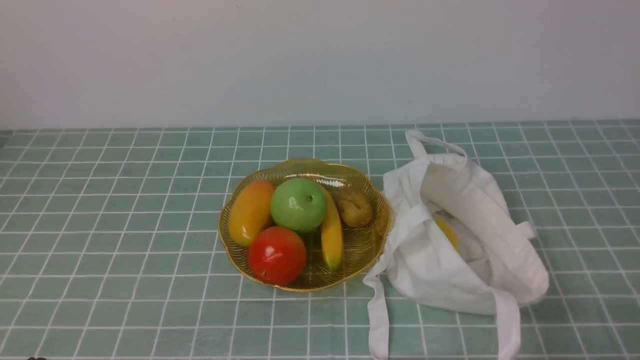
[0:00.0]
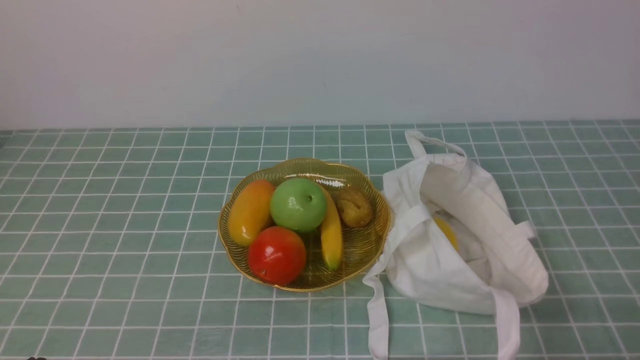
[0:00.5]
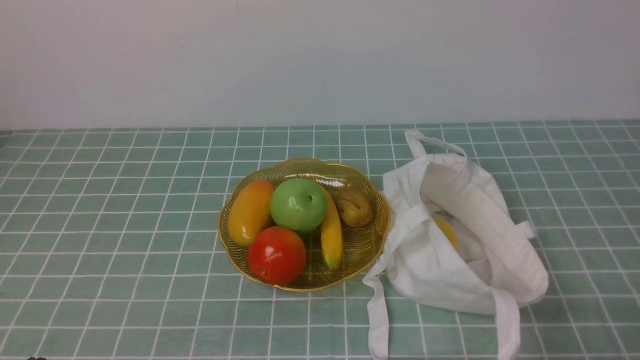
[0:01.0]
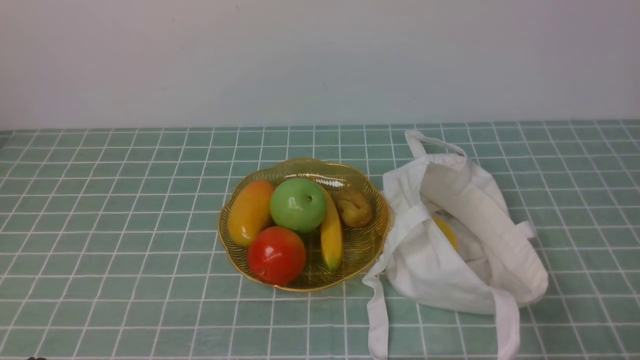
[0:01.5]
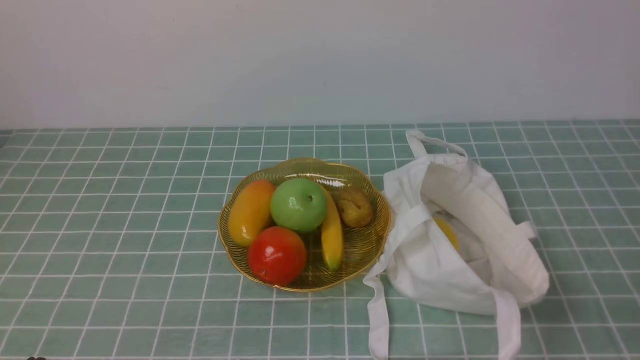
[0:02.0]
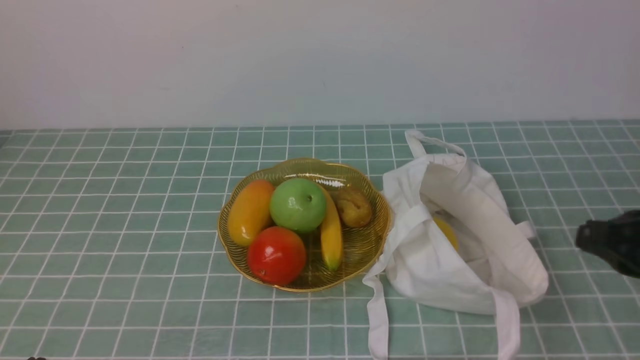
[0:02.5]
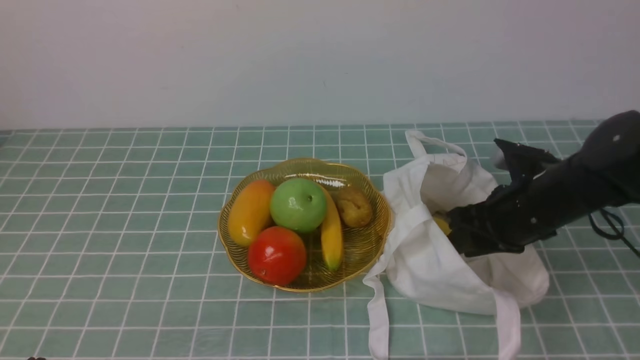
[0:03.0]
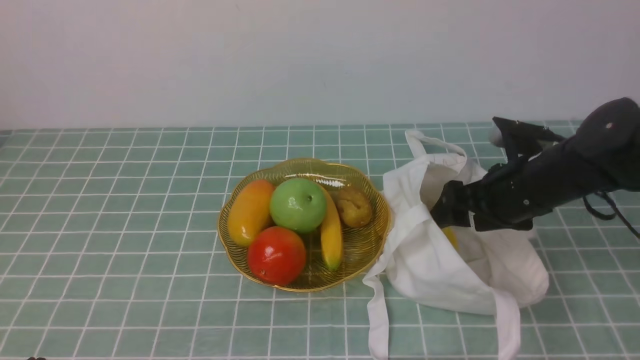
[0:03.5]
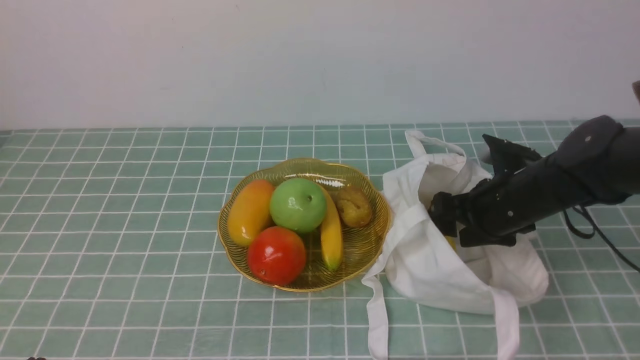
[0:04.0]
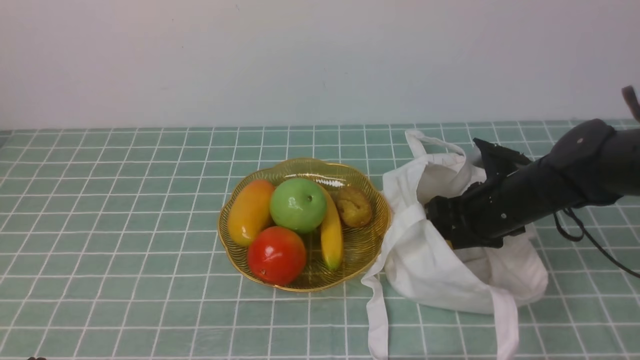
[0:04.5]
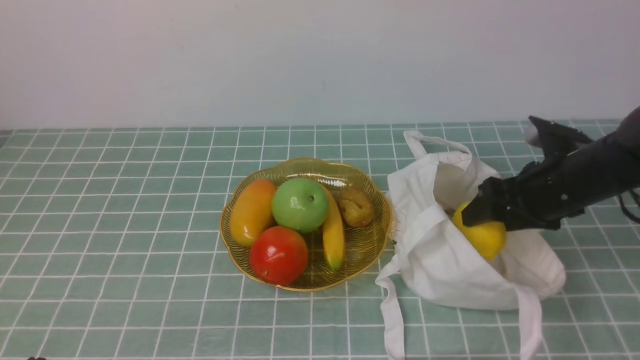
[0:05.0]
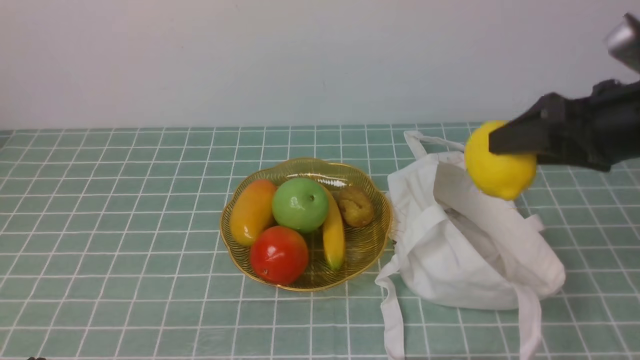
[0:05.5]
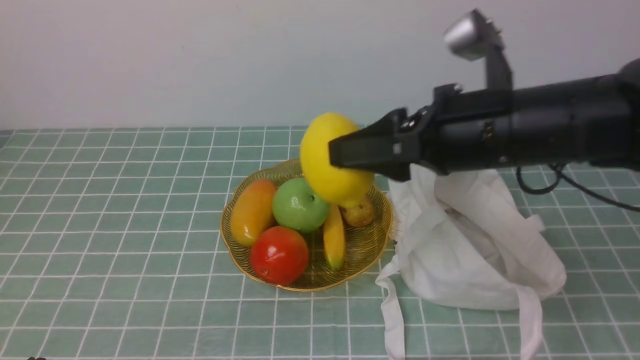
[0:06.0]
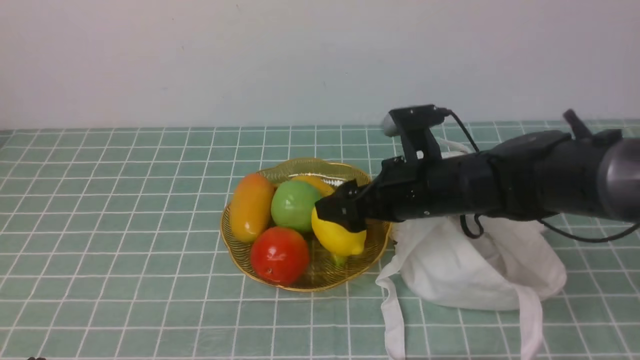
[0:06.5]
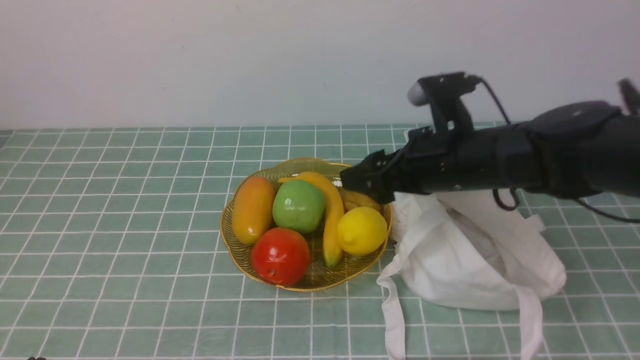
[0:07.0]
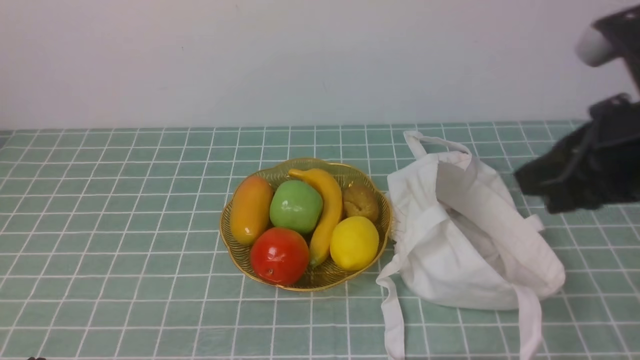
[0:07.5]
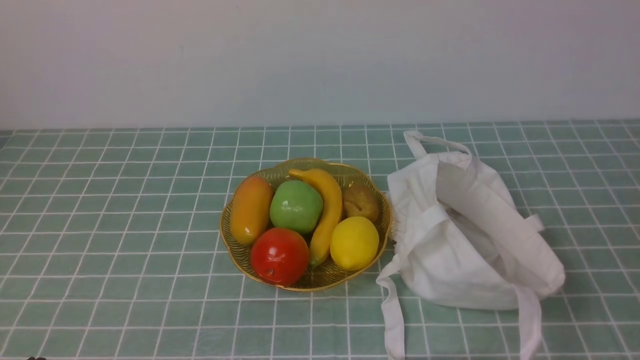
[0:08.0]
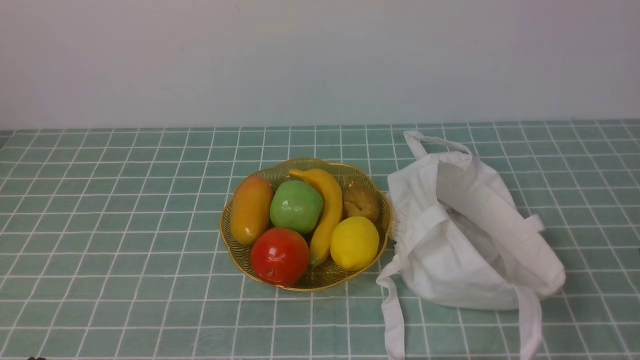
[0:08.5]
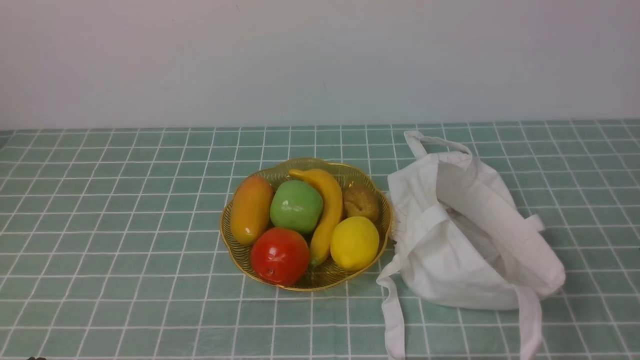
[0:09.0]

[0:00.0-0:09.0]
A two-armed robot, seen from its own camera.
Step, 0:00.0 to 0:04.5: use the right arm to grab a lemon from the bag.
Step, 0:05.0 to 0:06.5: use the right arm to put the lemon into the empty plate on the left.
0:02.0 to 0:04.5: The right gripper moves forward, approximately 30 cm, and opens.
0:04.5 to 0:07.0: The right gripper swings up and down, approximately 15 cm each way, with 2 reversals.
0:07.0 to 0:09.0: The right gripper is displaced backward and to the right by about 30 cm, and closes up.

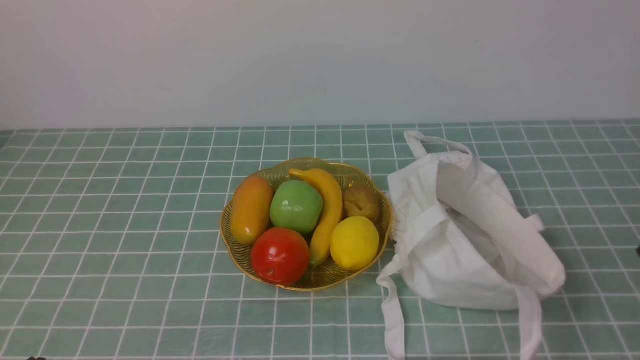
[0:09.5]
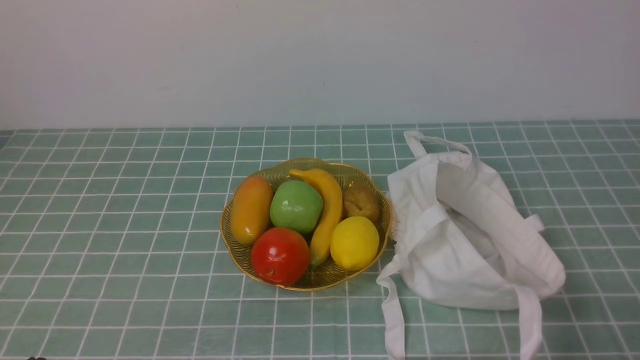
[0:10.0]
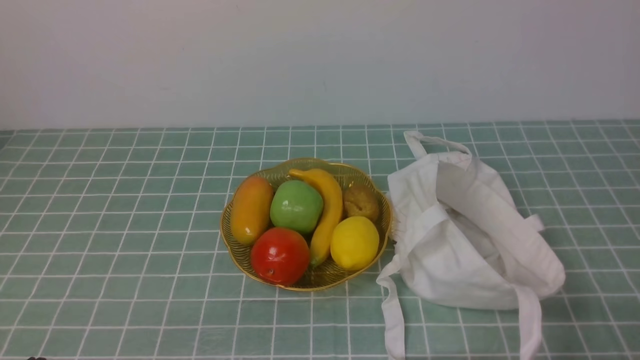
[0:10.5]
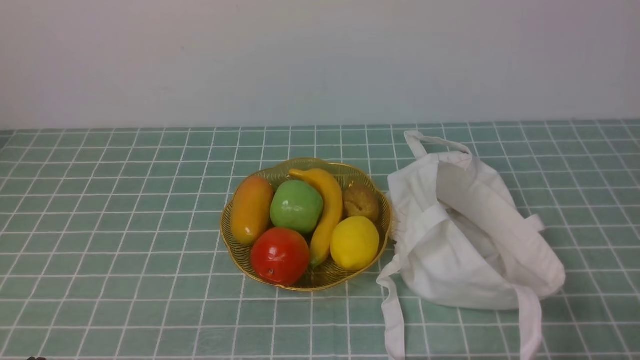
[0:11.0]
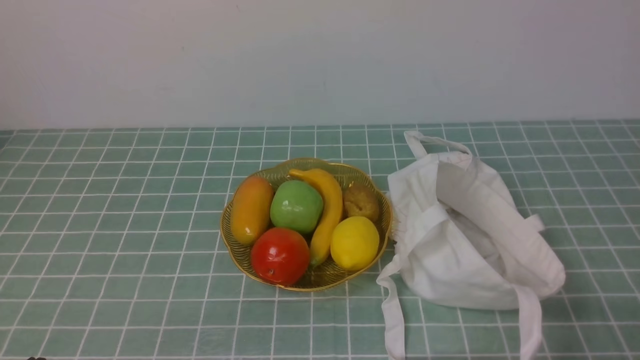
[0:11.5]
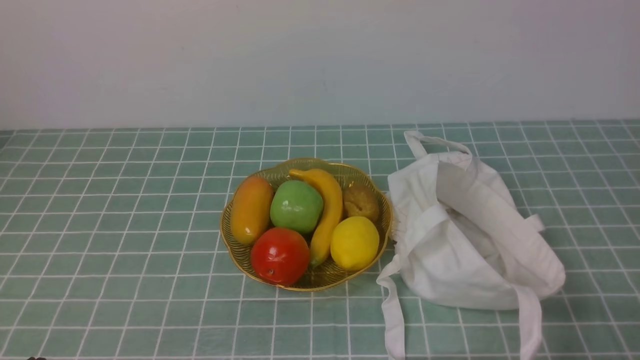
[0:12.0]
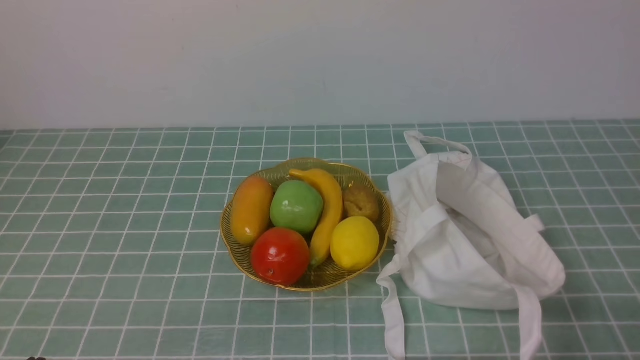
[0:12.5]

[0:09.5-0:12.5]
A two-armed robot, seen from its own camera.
0:11.0 to 0:12.5: The two grippers keep their place.

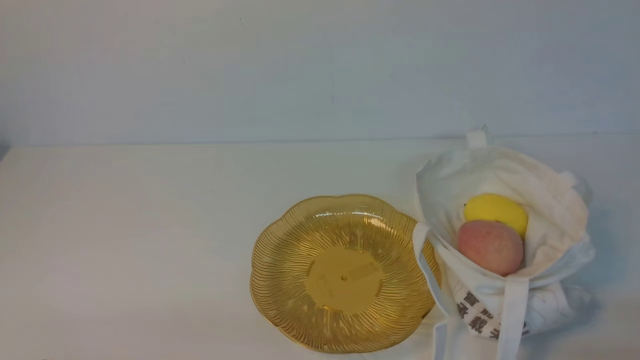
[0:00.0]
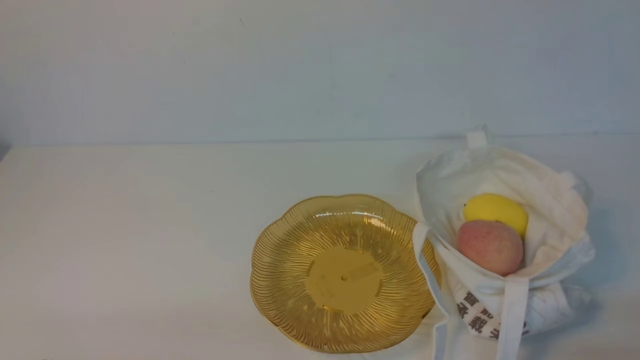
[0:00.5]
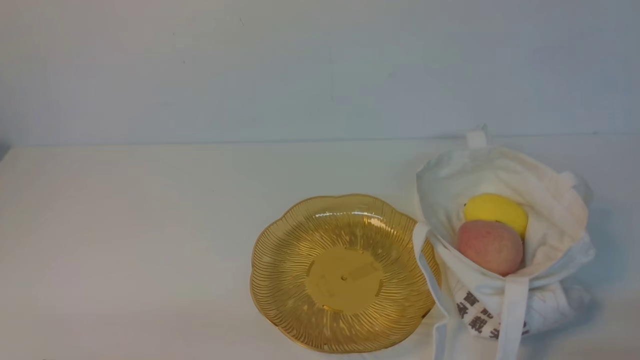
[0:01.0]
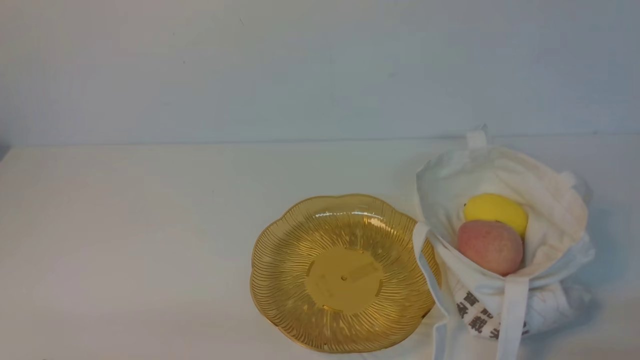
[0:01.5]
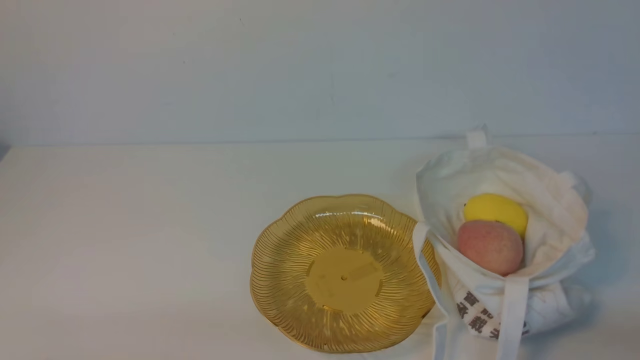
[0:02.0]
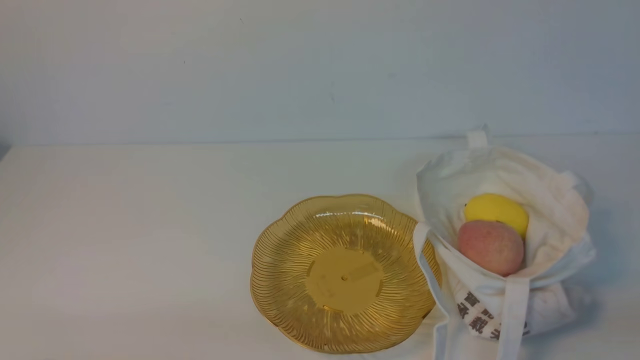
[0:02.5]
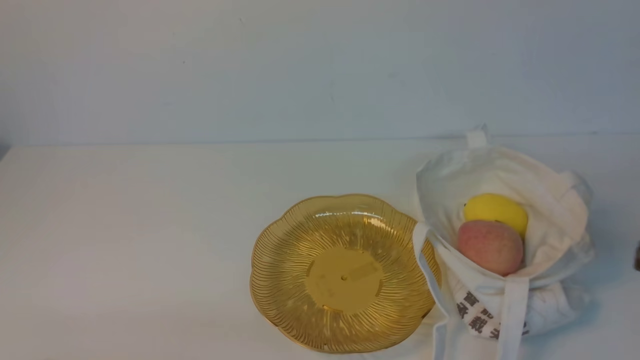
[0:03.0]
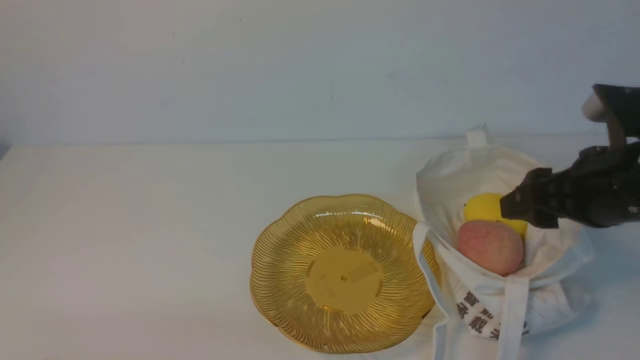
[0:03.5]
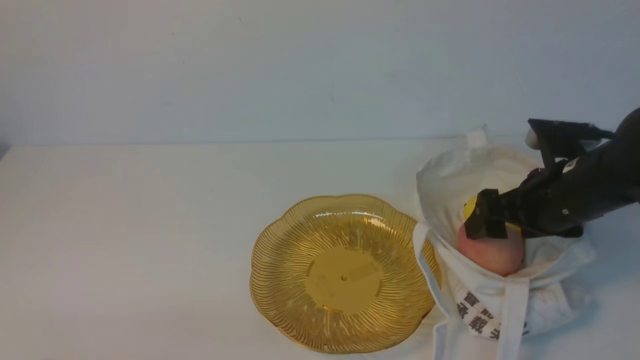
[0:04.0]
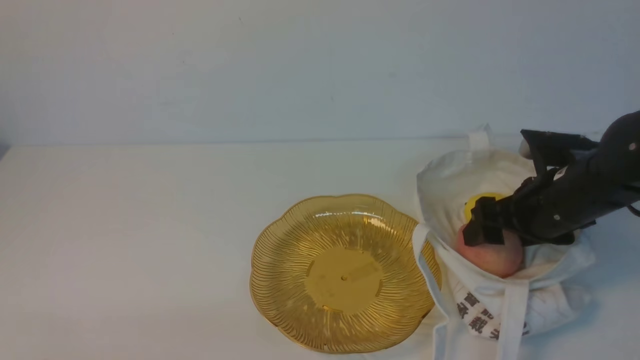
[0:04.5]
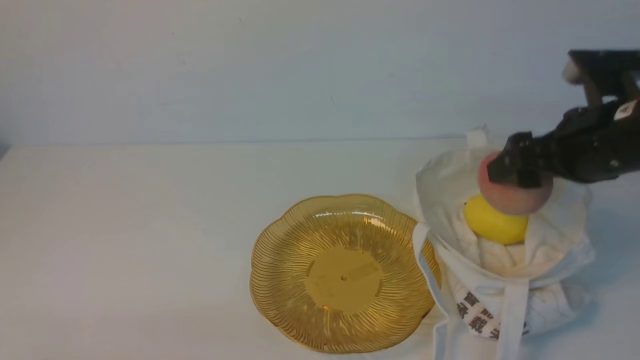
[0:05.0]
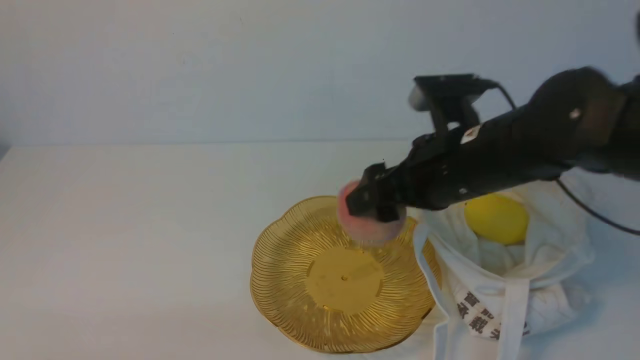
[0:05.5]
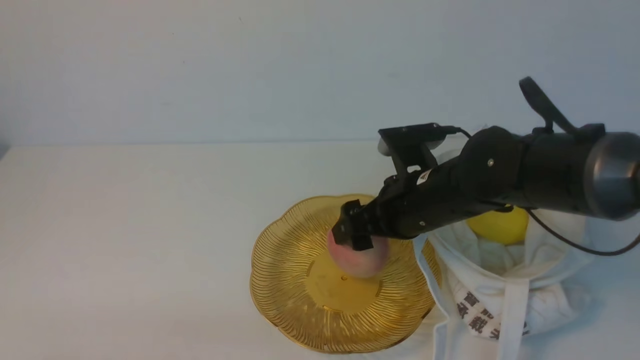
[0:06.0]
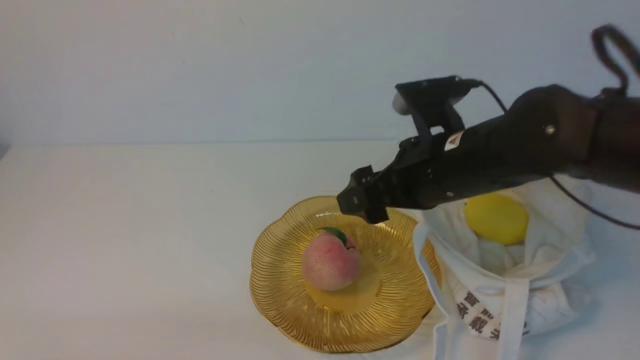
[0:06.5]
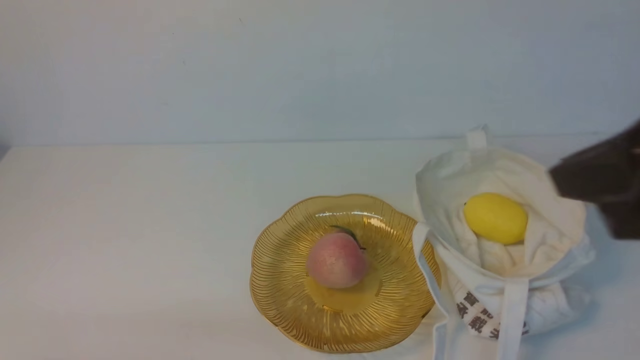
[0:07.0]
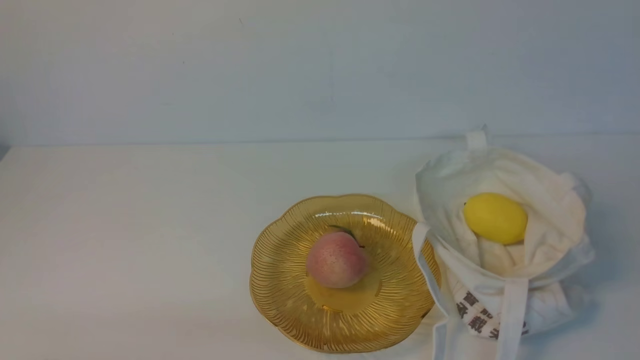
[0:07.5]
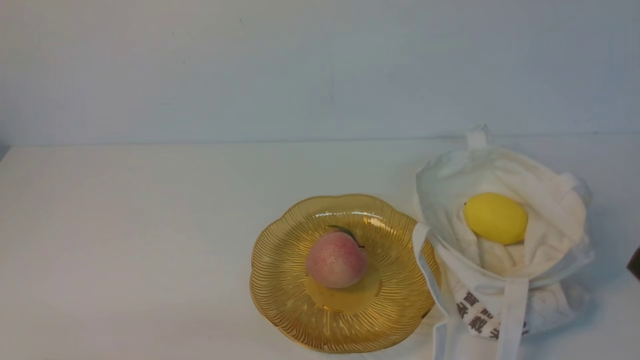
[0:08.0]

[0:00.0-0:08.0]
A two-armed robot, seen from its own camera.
Step, 0:00.0 to 0:04.5: use the right arm to grab a peach from the bag.
Step, 0:05.0 to 0:06.0: use the right arm to put the peach into the empty plate on the left.
0:02.0 to 0:04.0: The right gripper shifts approximately 25 cm forward, and opens.
0:04.0 to 0:06.0: The right gripper travels to the left by some 15 cm.
0:06.0 to 0:08.0: The right gripper is displaced backward and to the right by about 30 cm, and closes.
